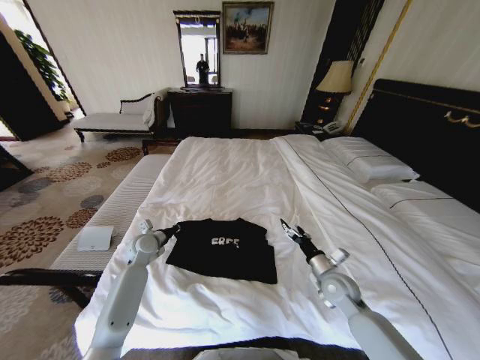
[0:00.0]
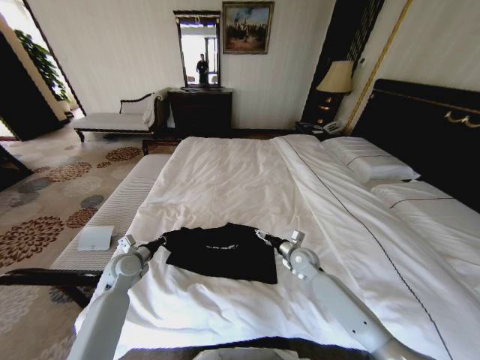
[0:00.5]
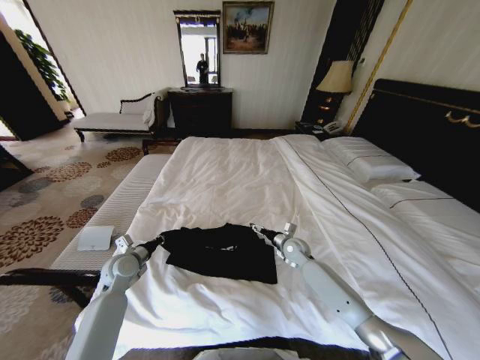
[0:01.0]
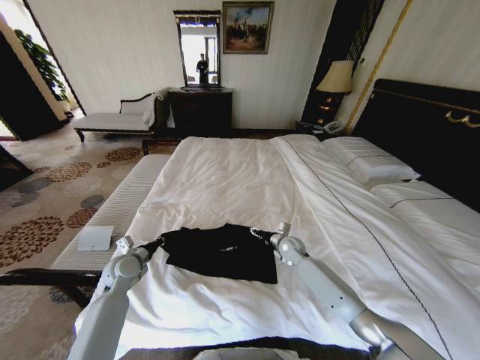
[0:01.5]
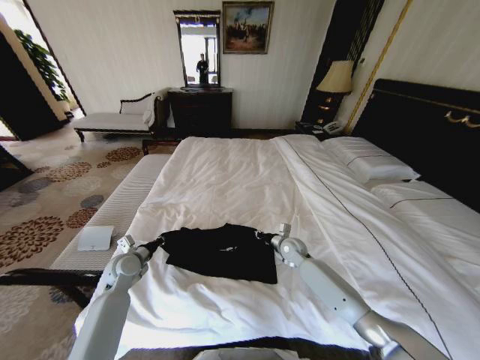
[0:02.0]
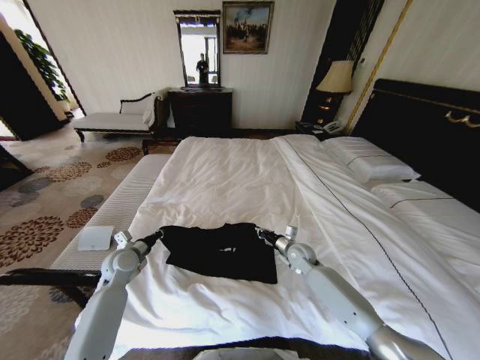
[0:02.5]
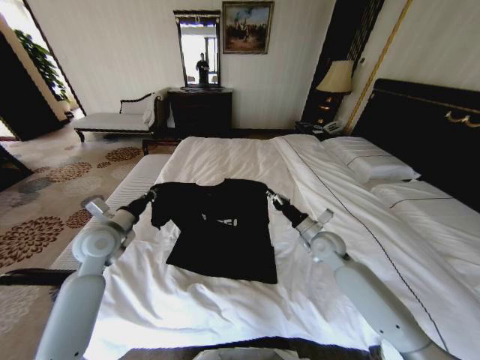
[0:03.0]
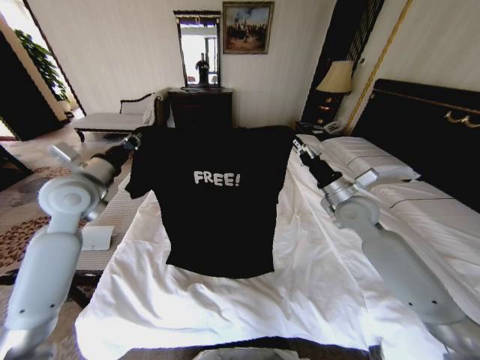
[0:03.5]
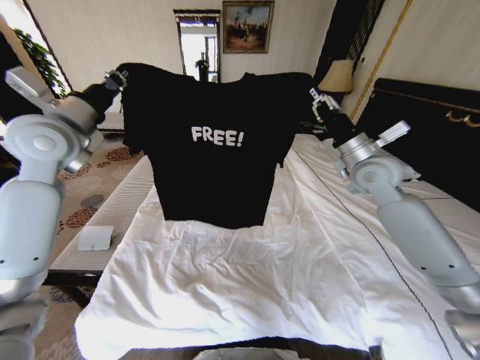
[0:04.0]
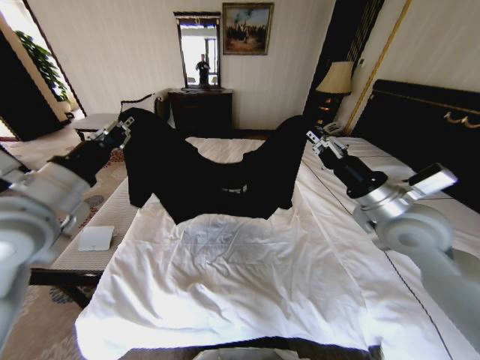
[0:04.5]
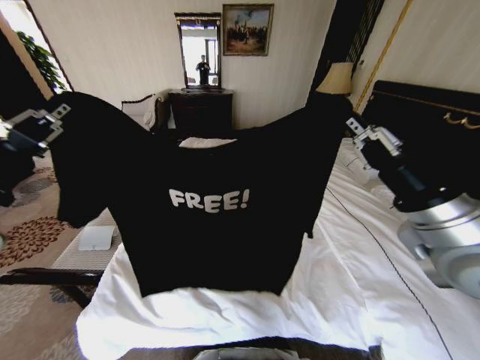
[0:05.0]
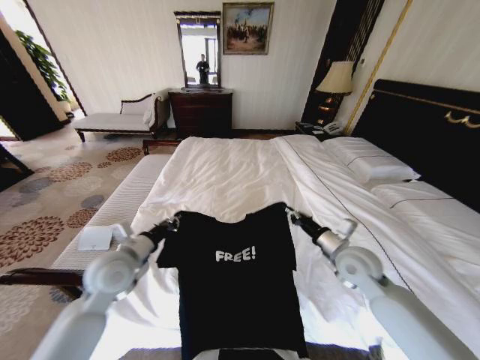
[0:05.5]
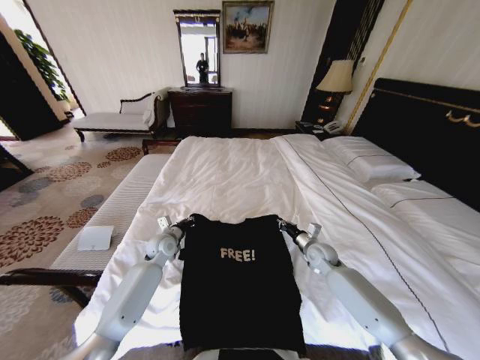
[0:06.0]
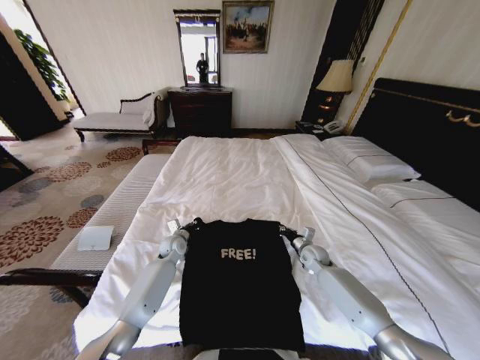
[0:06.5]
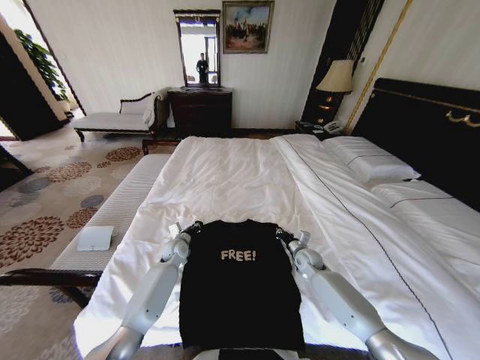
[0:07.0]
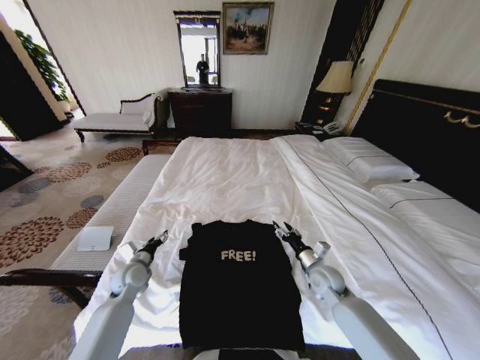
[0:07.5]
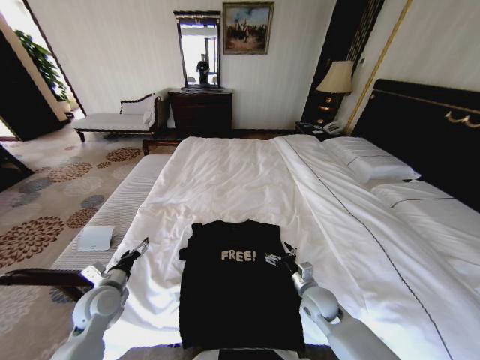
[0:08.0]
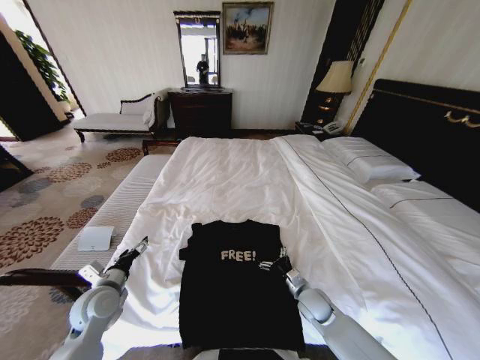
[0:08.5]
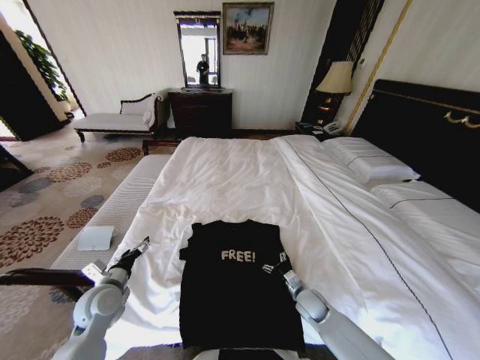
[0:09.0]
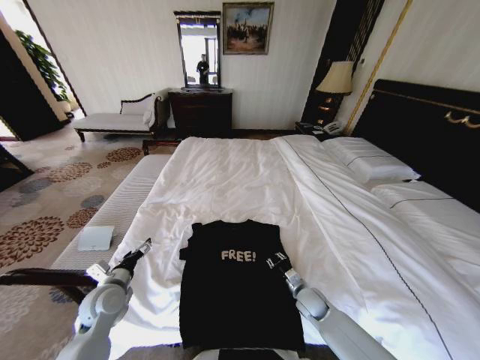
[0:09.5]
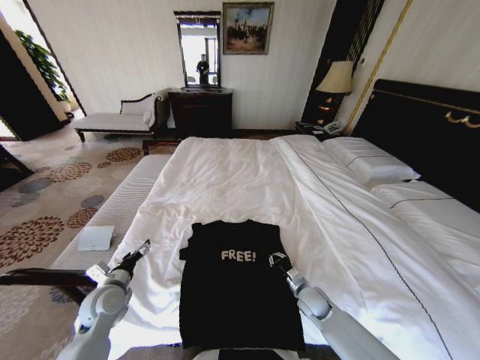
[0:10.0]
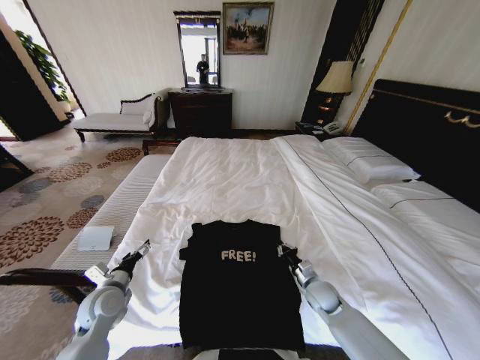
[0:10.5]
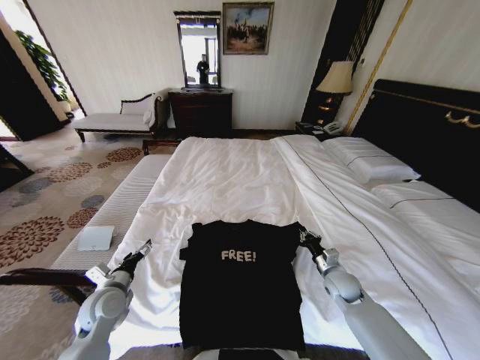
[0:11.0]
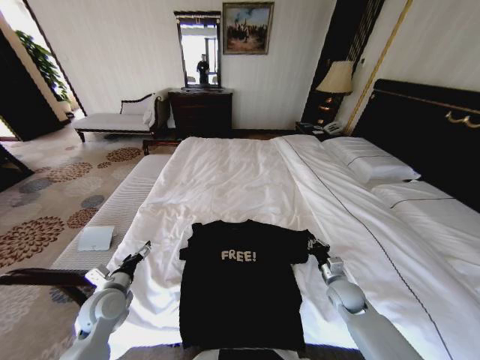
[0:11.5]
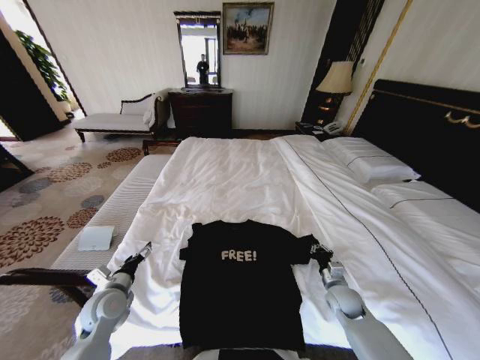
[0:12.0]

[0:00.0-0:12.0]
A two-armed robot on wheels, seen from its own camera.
Task of the whole recording: Fold the clothes on the bed.
0:00.0 to 0:02.0: The right gripper is displaced forward and to the left by roughly 15 cm, and closes. Meanwhile the left gripper heads backward, covering about 5 cm.
0:02.0 to 0:04.0: The grippers both shift upward by some 35 cm.
0:04.0 to 0:06.0: The grippers both shift downward by approximately 35 cm.
0:06.0 to 0:08.0: The grippers both shift backward and to the left by approximately 20 cm. The left gripper opens; the right gripper opens up.
0:08.0 to 0:10.0: The right gripper is displaced downward by approximately 5 cm, and closes up.
0:10.0 to 0:12.0: The right gripper heads to the right, covering some 10 cm.

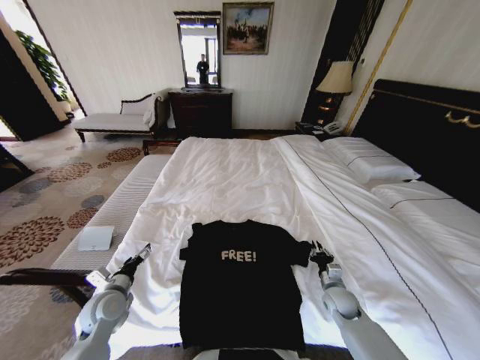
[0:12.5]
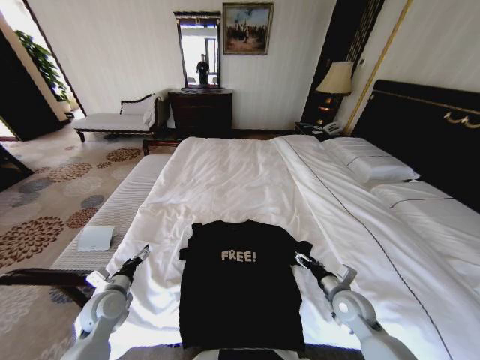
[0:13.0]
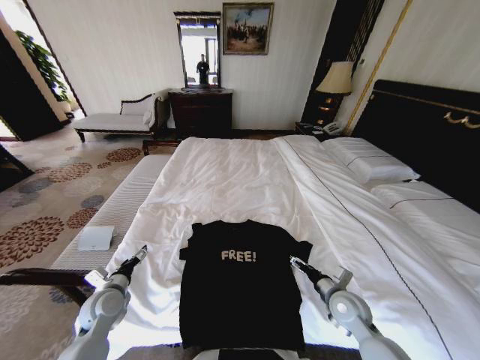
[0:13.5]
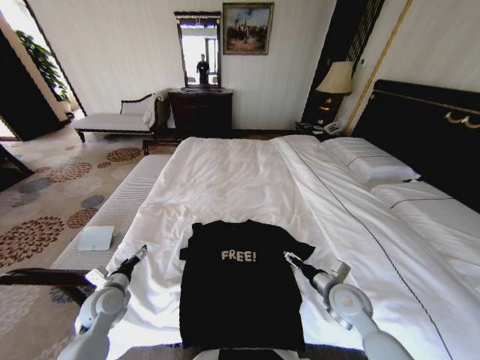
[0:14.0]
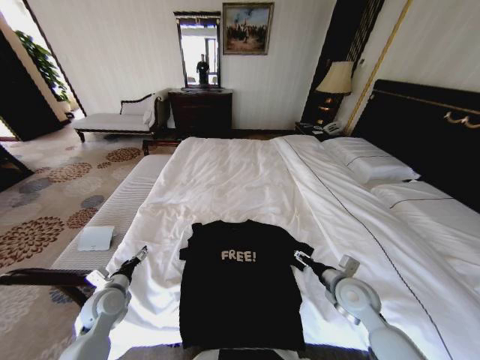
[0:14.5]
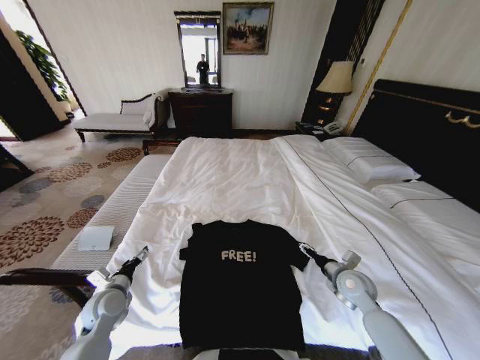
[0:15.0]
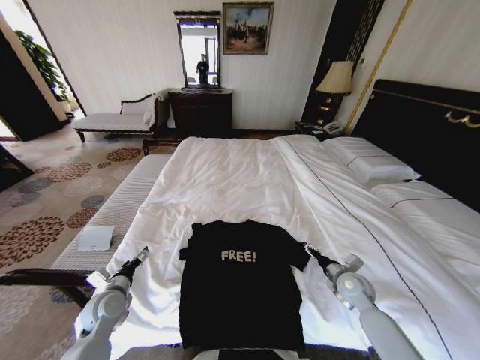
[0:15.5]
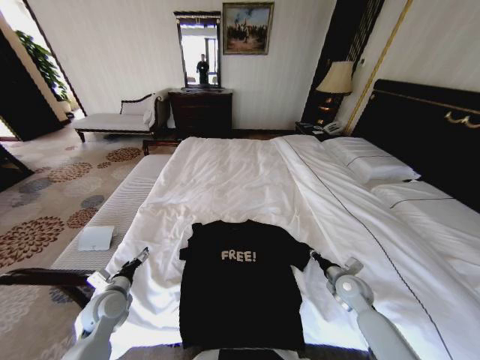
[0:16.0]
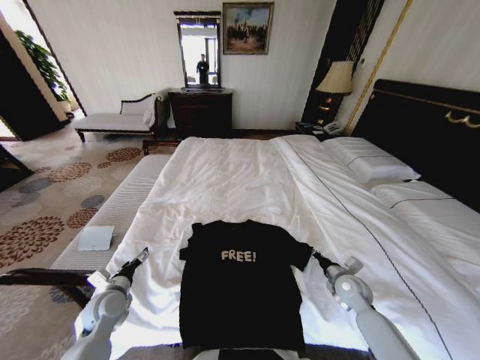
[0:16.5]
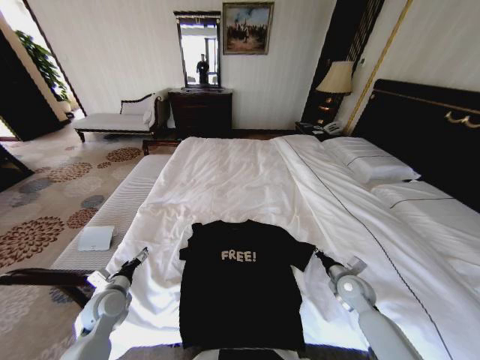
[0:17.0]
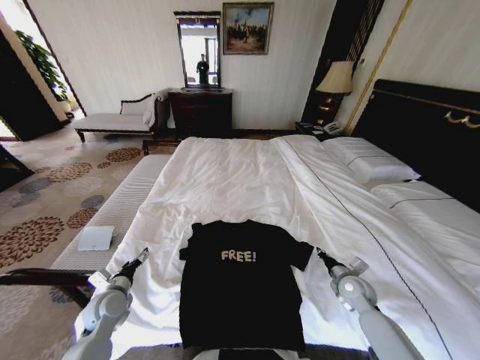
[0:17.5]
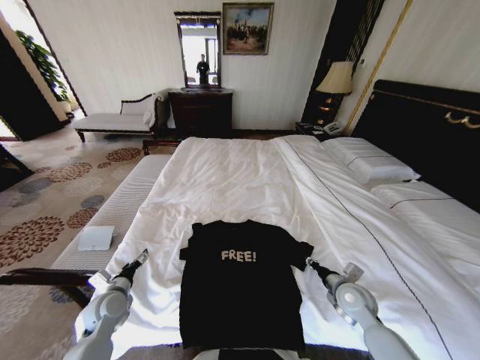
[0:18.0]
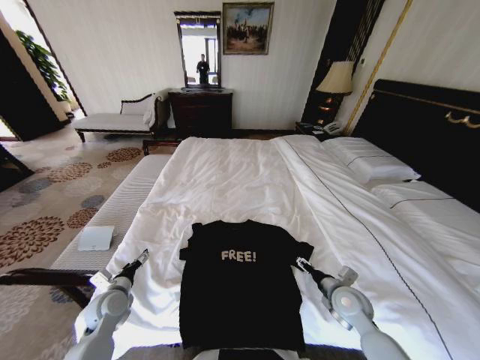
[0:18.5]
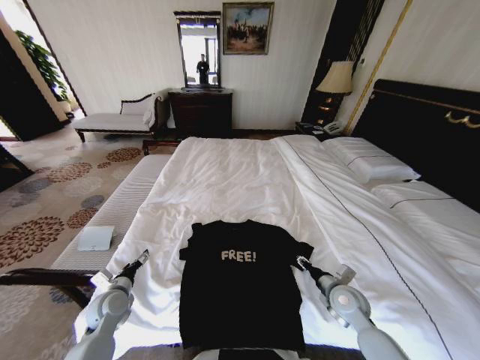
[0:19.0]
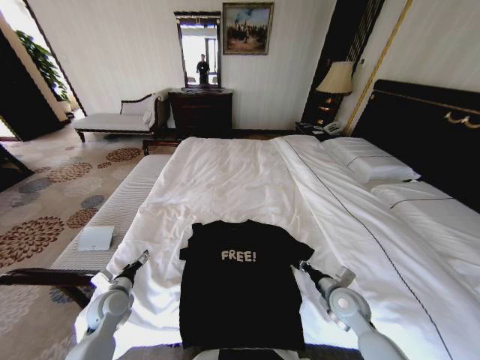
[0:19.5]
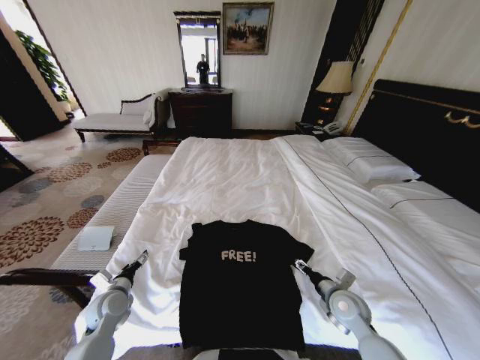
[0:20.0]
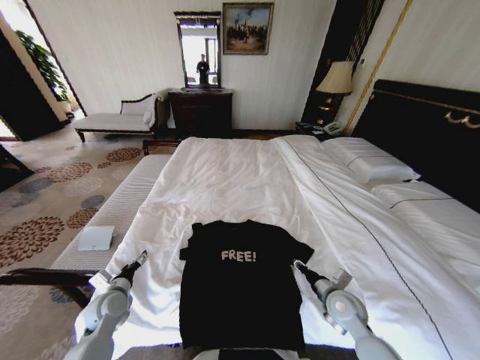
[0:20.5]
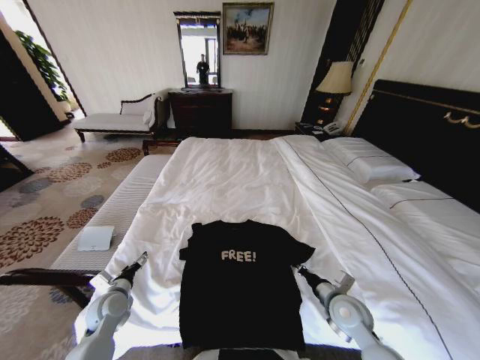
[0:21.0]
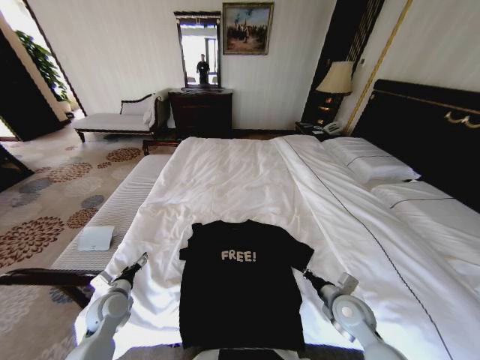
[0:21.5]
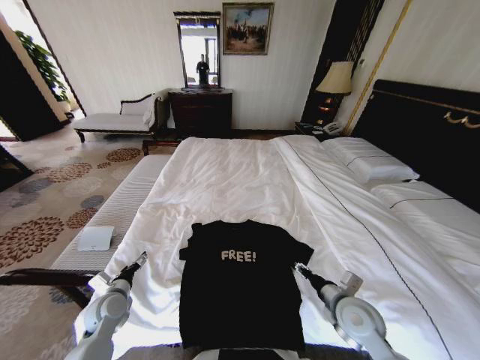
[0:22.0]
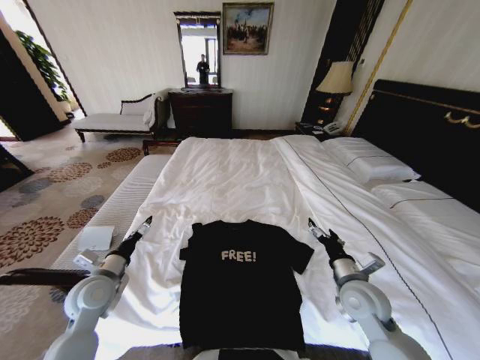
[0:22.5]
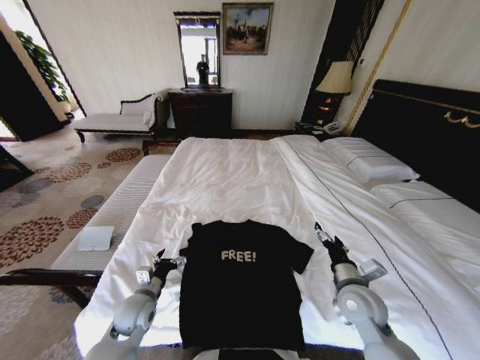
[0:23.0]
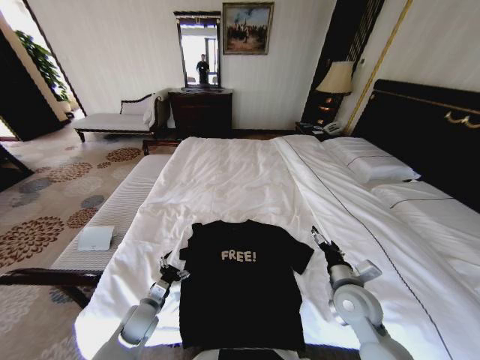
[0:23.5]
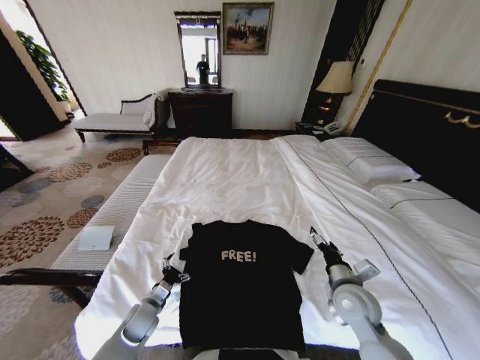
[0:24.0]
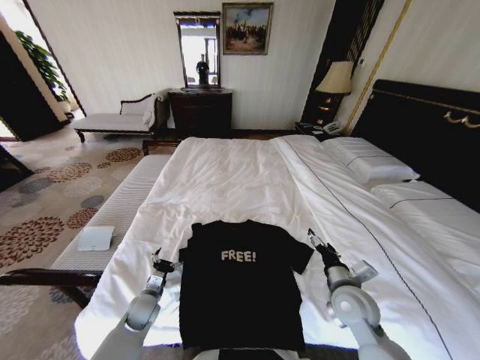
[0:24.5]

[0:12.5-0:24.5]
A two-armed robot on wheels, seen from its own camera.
Task of the whole recording: Fold the clothes on the bed.
0:12.5 to 0:14.5: The right gripper heads upward, covering approximately 15 cm, and opens.
0:14.5 to 0:16.5: The right gripper travels downward and to the right by some 10 cm, and closes up.
0:16.5 to 0:18.5: The right gripper goes some 5 cm to the left, and opens its fingers.
0:18.5 to 0:20.5: The right gripper closes up.
0:20.5 to 0:22.5: The grippers both shift upward by approximately 10 cm. The right gripper opens up.
0:22.5 to 0:24.5: The left gripper goes about 20 cm downward.

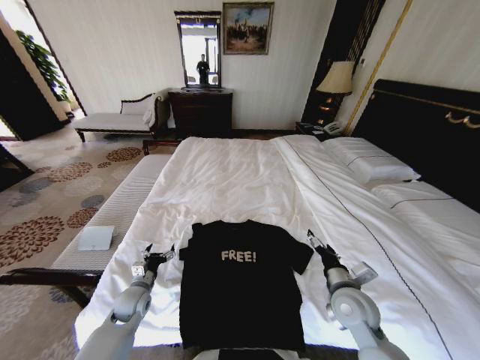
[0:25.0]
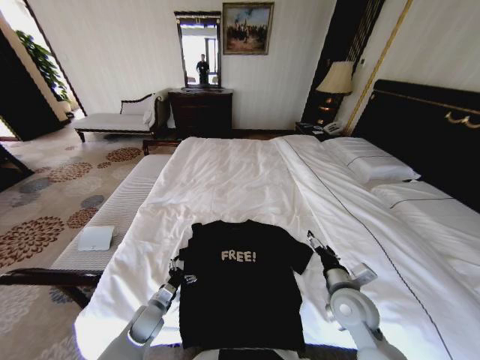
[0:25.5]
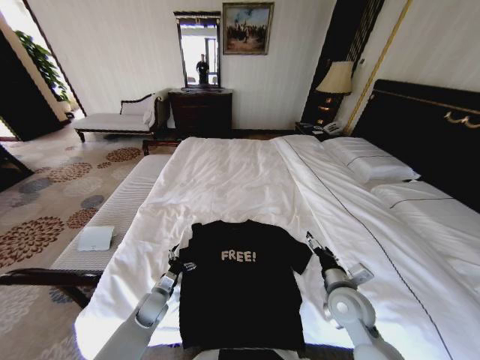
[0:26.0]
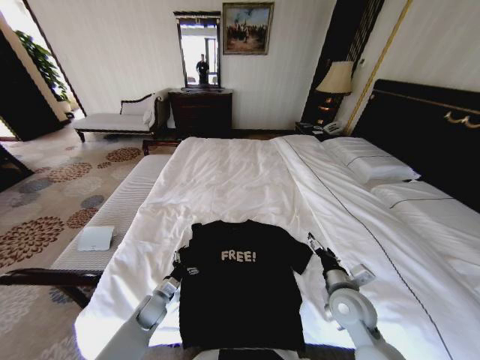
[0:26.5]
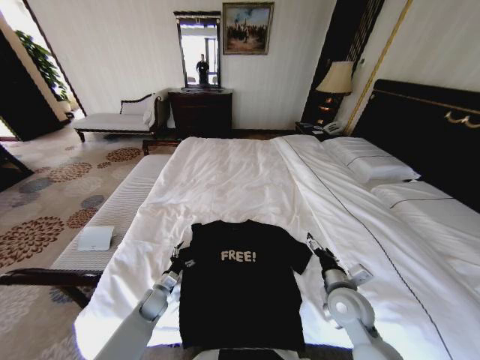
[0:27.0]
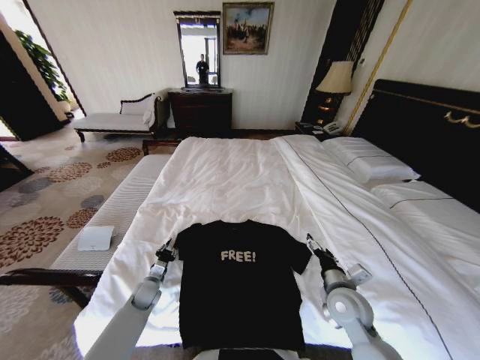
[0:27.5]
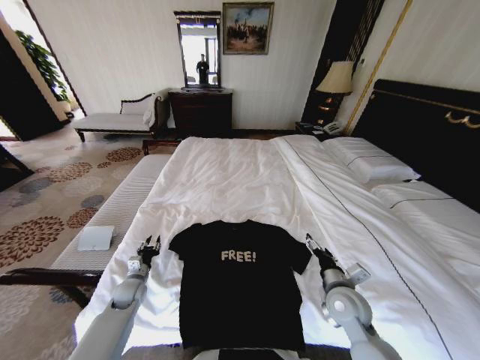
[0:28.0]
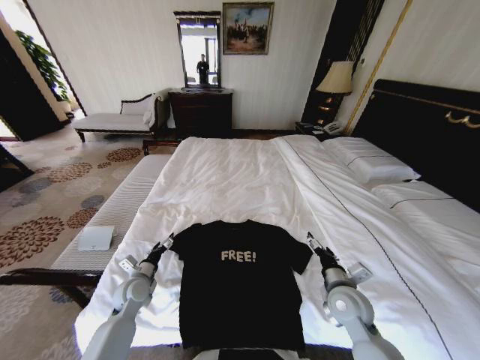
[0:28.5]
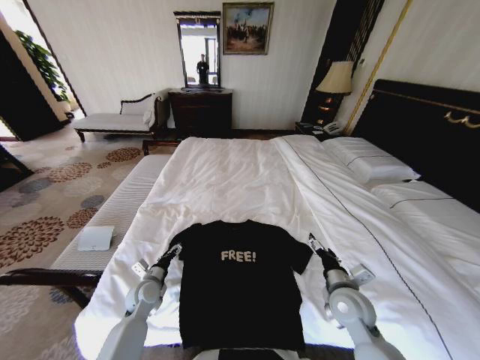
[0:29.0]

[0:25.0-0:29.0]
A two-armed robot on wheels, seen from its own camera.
Task of the whole recording: Fold the clothes on the bed.
0:25.0 to 0:27.0: The left gripper shifts roughly 10 cm downward.
0:27.0 to 0:29.0: The left gripper shifts approximately 10 cm upward, and closes and opens again.
